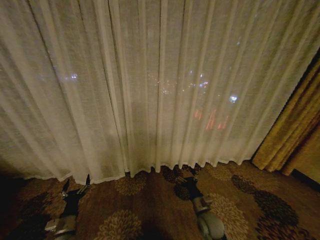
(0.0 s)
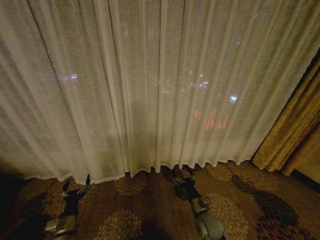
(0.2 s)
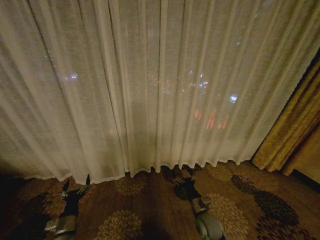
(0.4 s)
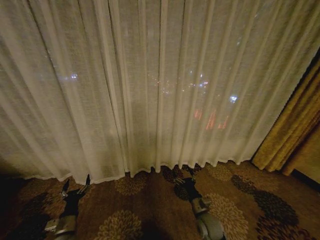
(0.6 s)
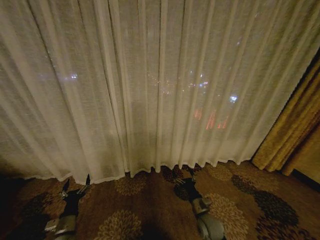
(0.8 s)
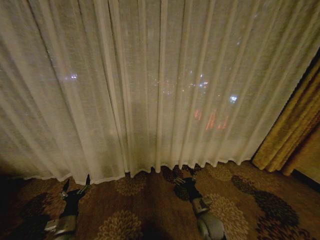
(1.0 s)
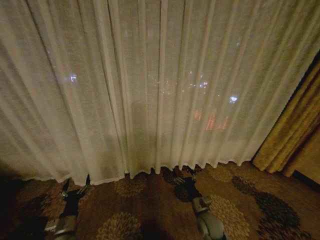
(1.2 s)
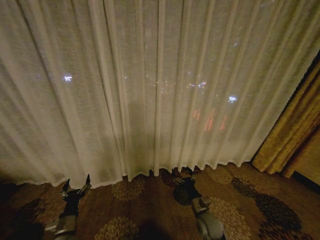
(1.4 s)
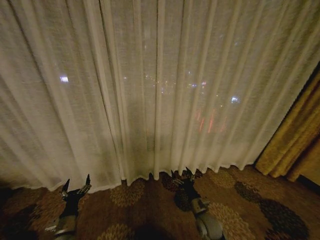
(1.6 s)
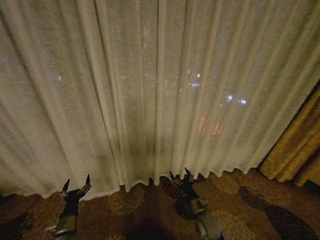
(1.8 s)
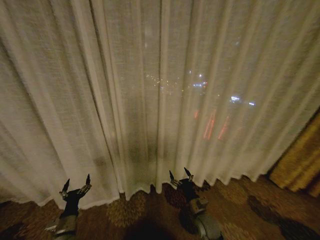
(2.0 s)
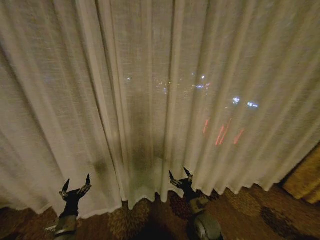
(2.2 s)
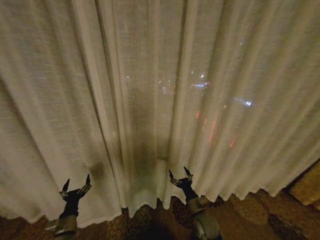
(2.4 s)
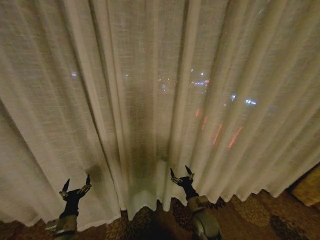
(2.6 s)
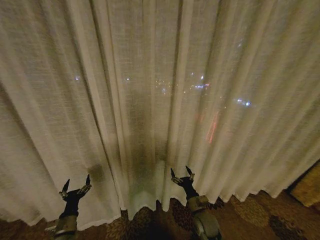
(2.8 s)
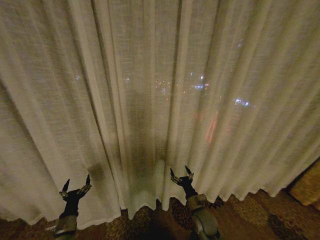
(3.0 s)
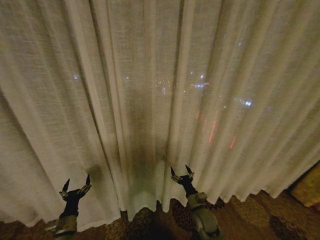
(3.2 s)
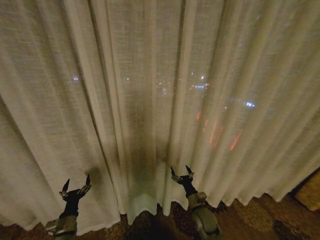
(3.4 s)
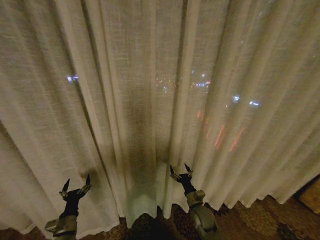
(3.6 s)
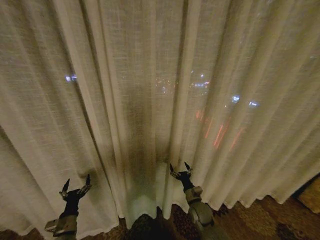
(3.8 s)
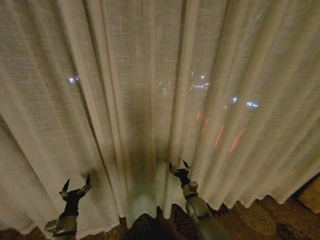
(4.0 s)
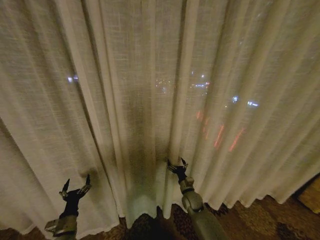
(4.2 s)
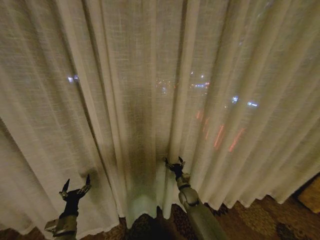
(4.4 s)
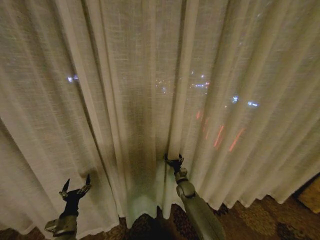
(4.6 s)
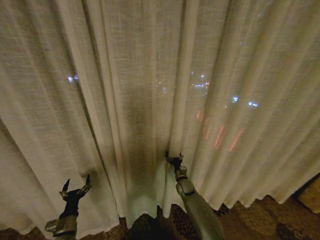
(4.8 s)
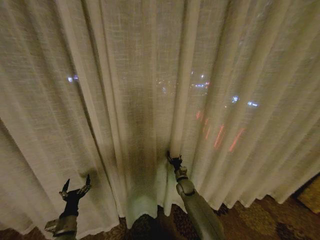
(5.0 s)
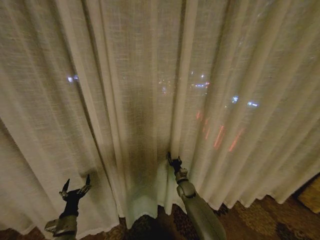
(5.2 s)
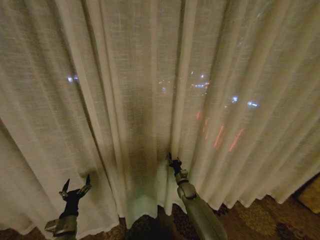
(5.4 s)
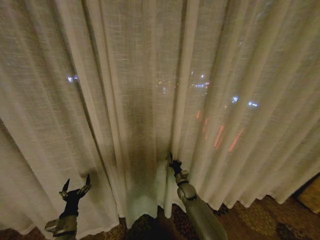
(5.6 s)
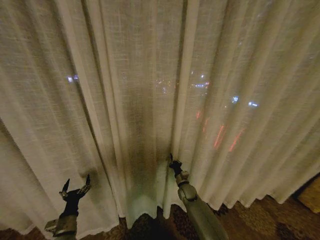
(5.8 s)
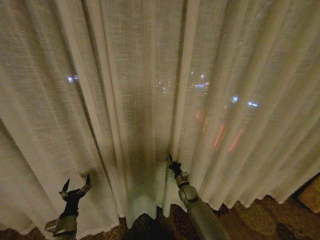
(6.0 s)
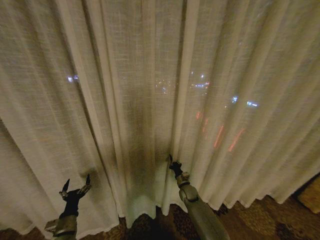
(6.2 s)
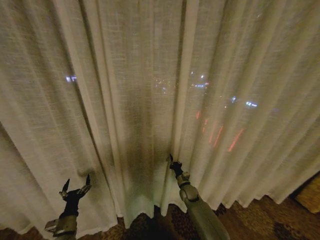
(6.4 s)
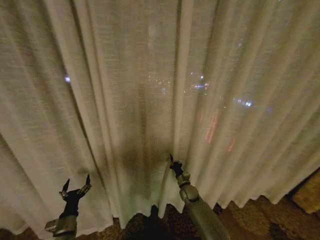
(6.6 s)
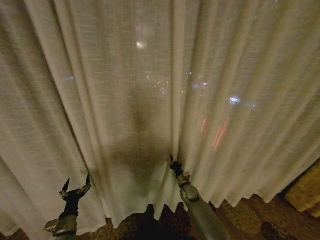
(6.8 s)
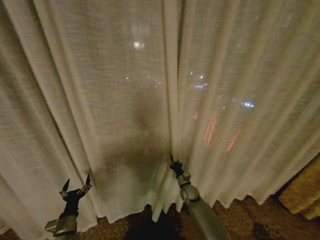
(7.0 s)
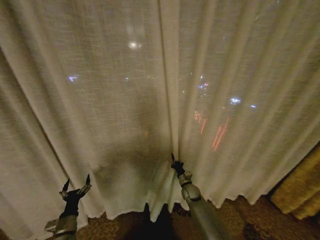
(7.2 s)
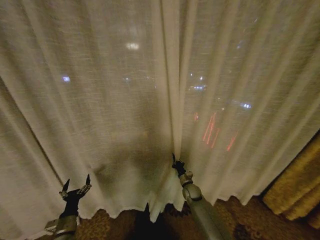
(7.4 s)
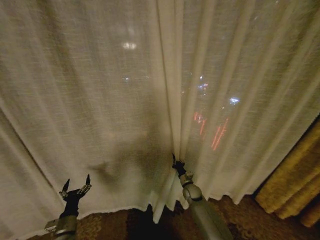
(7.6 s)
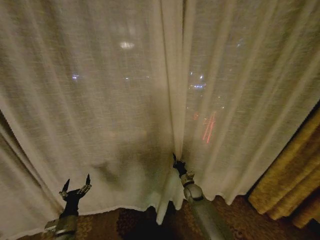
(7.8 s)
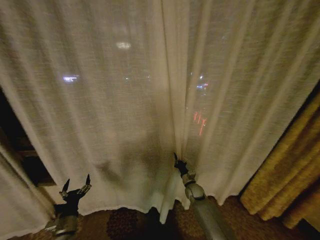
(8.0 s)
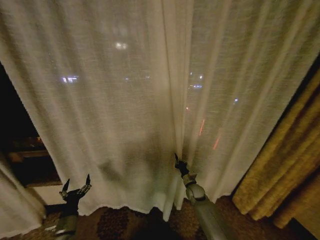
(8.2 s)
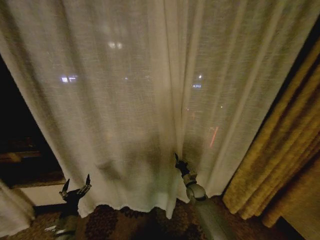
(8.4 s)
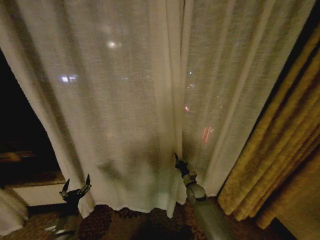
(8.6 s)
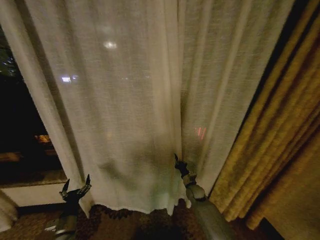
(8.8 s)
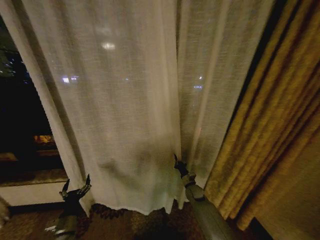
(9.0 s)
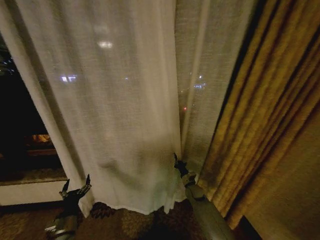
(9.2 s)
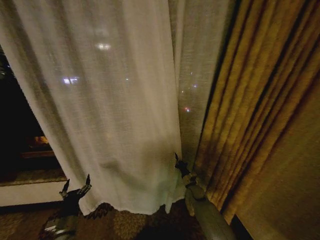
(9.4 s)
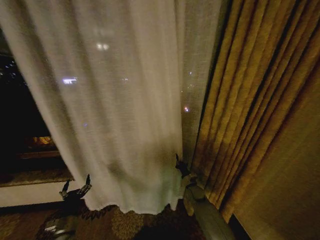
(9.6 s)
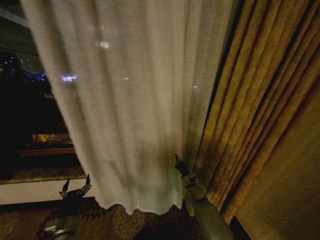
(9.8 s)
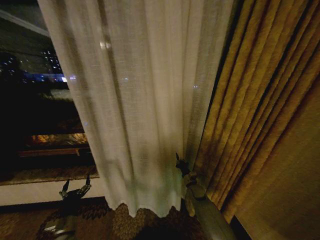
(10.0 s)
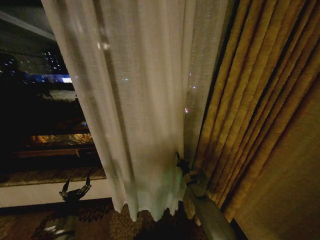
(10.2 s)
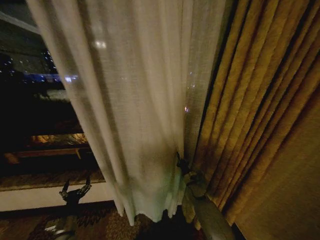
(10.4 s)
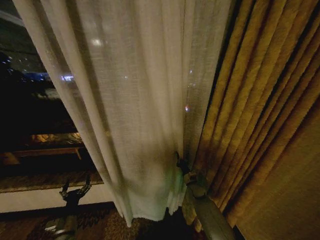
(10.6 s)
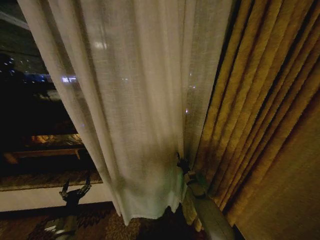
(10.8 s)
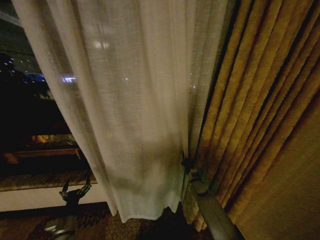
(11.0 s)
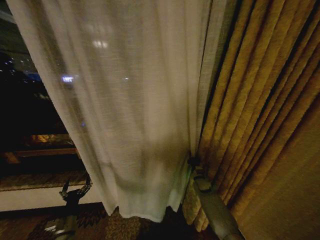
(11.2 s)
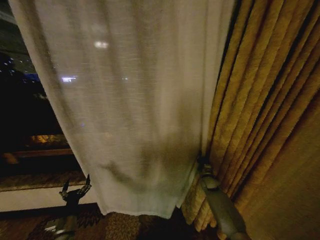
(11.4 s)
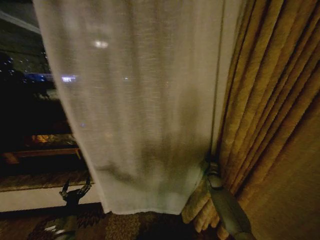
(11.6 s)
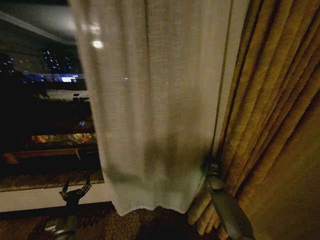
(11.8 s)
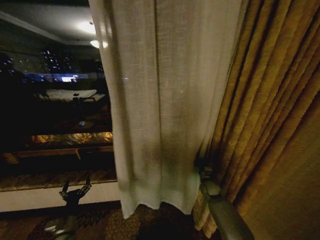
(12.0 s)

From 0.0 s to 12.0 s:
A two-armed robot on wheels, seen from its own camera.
Task of the whole recording: Open the curtains by pulling them apart, changing their state from closed to fully open.
From 3.0 s to 4.4 s: The right gripper shifts about 10 cm forward.
From 10.4 s to 12.0 s: The right gripper shifts approximately 5 cm to the right.

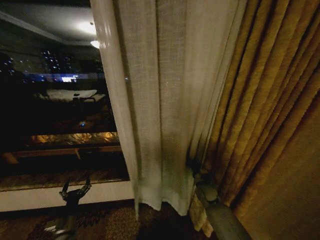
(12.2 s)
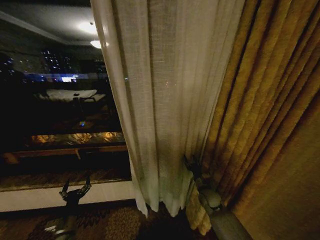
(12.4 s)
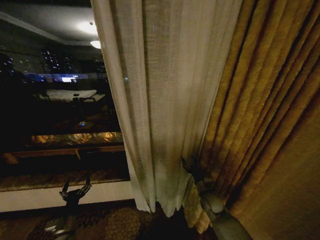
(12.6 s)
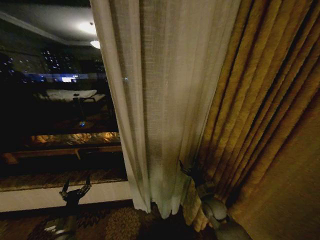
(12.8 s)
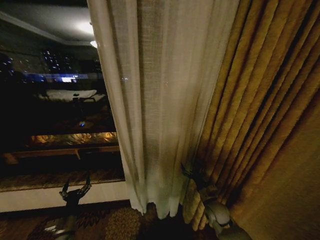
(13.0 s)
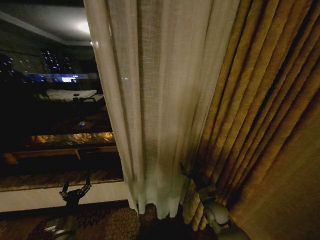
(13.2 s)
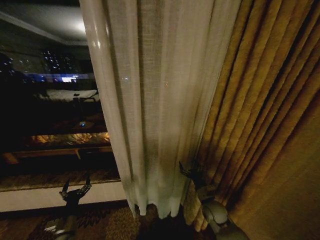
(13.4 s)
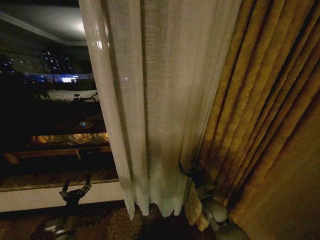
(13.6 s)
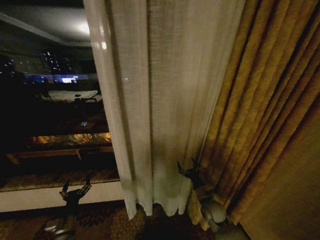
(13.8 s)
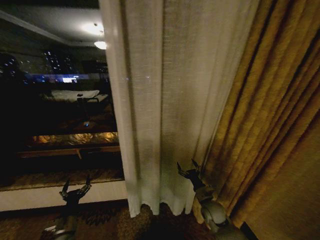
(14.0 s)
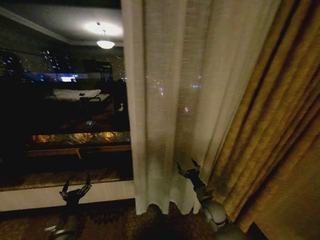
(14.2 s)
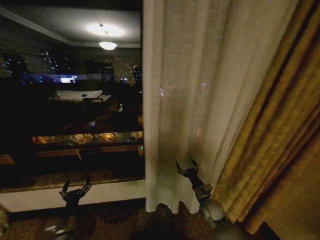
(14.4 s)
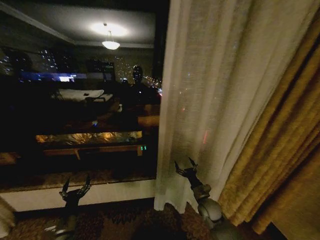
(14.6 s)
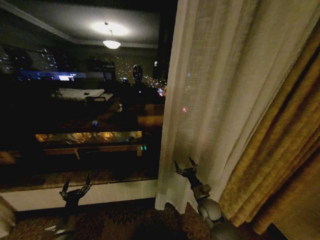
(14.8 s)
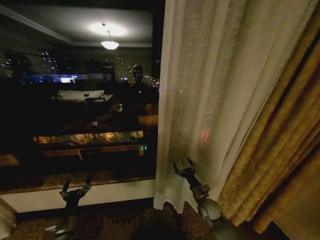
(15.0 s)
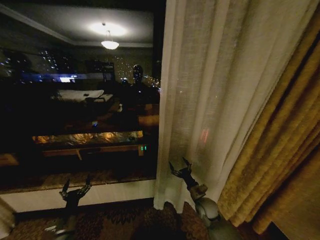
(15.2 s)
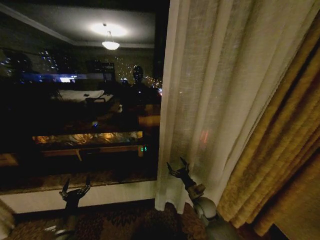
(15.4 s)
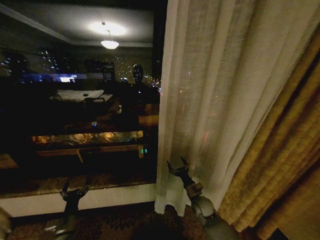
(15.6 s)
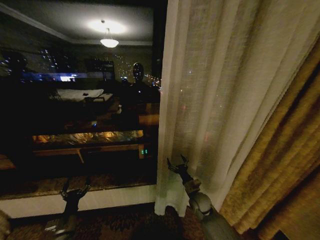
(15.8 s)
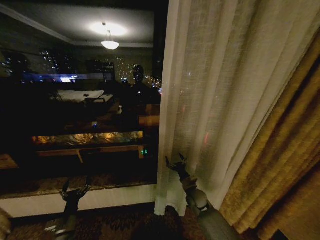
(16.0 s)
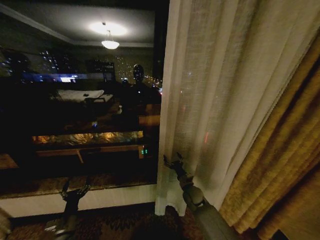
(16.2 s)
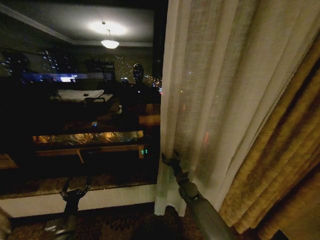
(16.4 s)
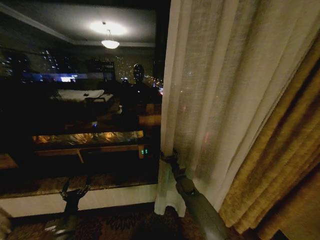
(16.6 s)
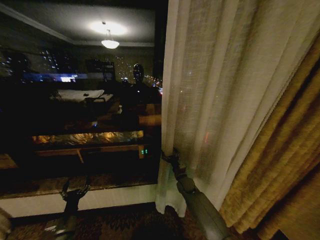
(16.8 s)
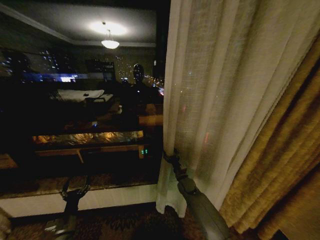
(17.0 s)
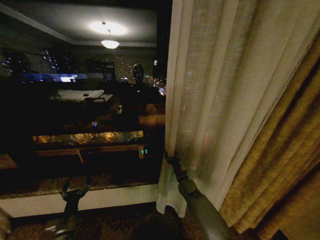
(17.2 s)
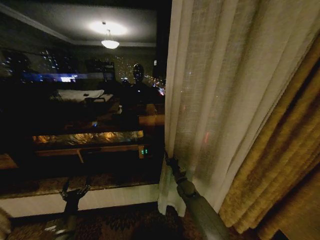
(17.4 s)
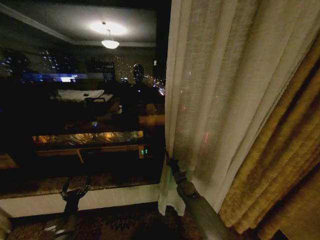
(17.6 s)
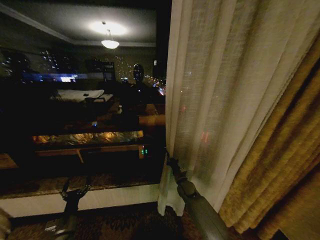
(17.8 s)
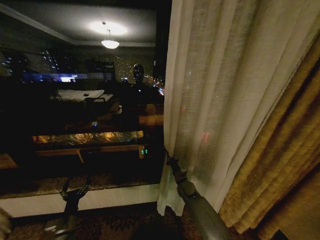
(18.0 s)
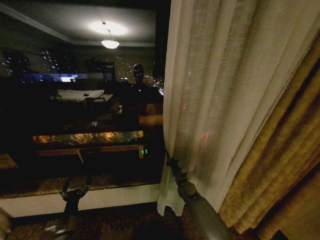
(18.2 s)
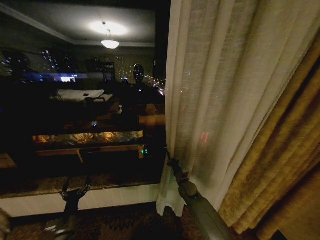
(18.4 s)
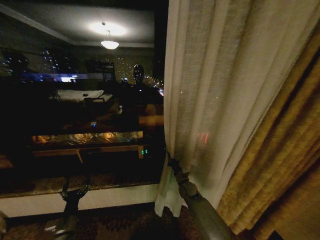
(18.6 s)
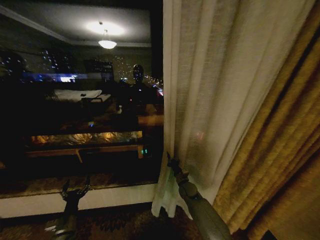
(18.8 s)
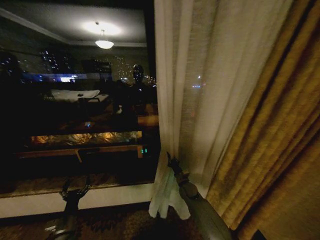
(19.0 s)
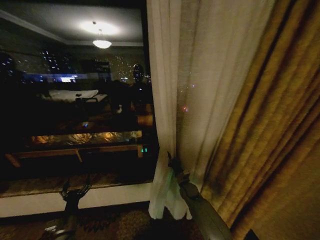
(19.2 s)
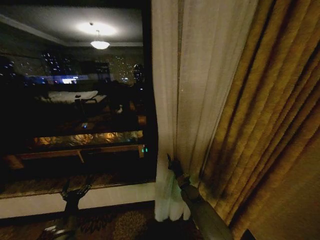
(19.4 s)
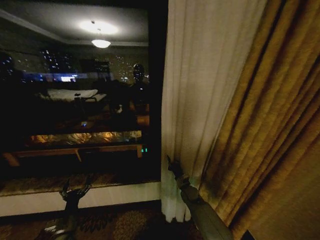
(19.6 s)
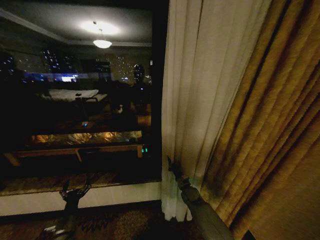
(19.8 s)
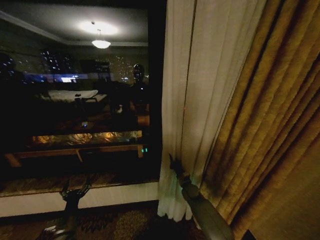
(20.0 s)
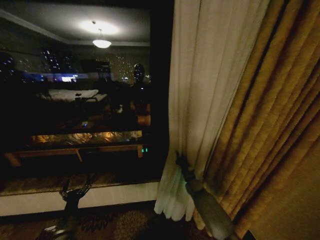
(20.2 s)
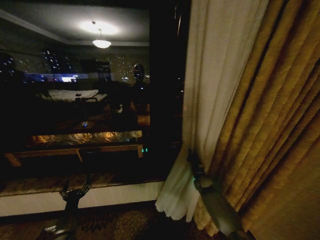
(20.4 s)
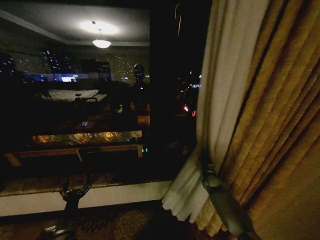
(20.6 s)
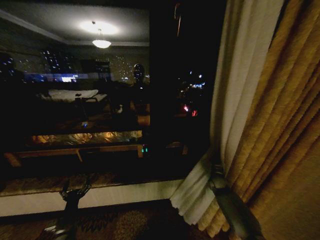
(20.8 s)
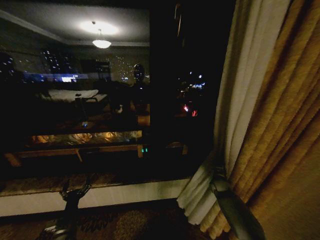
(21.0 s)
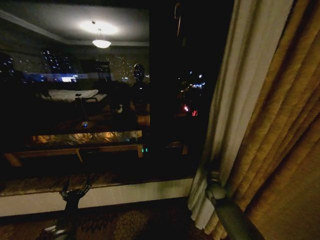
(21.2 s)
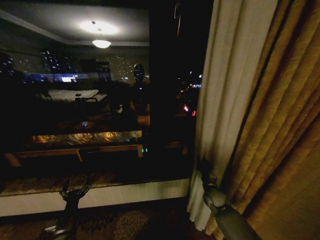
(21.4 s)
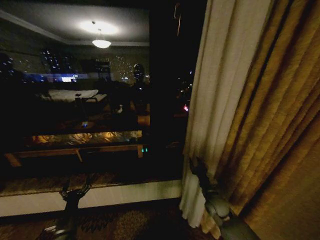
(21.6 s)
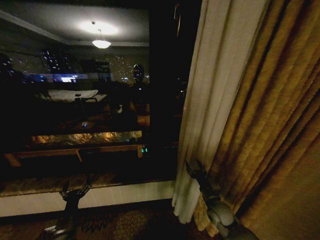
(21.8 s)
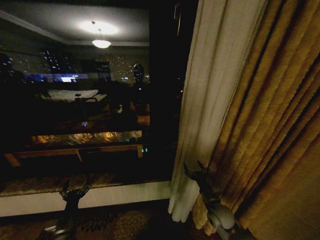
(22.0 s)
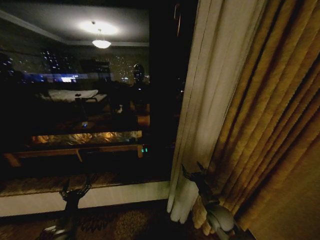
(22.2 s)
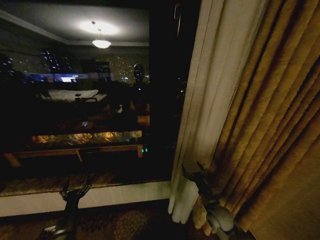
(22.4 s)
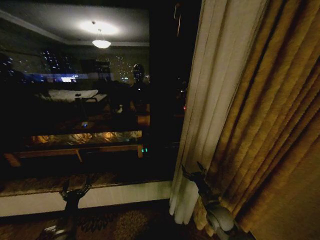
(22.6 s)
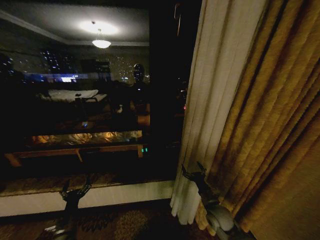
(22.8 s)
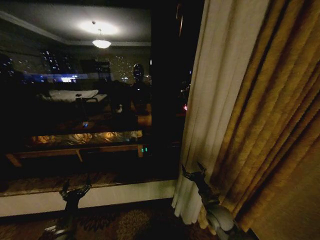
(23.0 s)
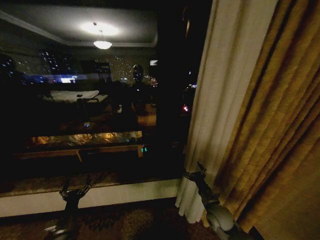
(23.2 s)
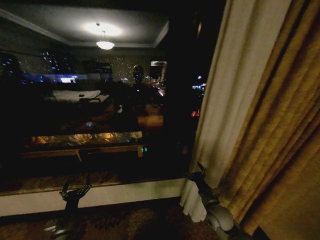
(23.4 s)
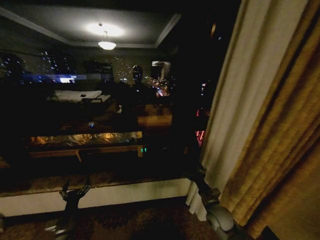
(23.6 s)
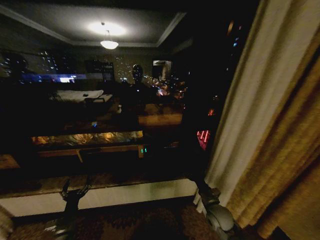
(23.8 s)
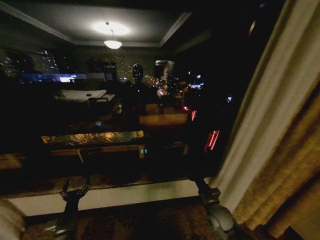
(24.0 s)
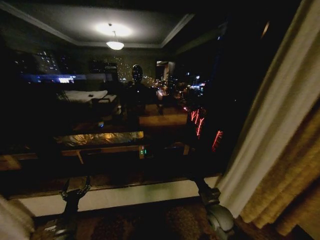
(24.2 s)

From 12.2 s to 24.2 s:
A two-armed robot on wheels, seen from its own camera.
Task of the whole recording: Open the curtains by pulling them apart, changing their state from closed to fully open.
From 12.2 s to 13.8 s: The right gripper is displaced backward by roughly 10 cm, and opens its fingers.
From 15.2 s to 16.6 s: The right gripper travels forward and to the left by about 15 cm.
From 16.6 s to 18.2 s: The right gripper closes its fingers.
From 19.8 s to 21.2 s: The right gripper heads to the right, covering approximately 15 cm.
From 21.2 s to 22.6 s: The right gripper travels backward and to the left by about 15 cm, and opens up.
